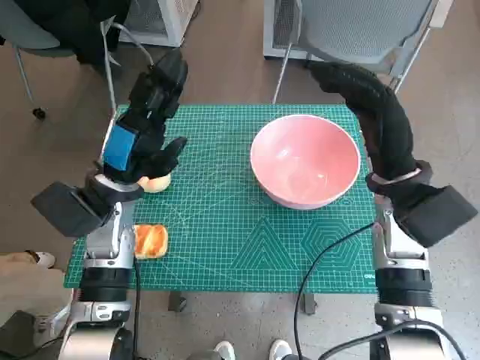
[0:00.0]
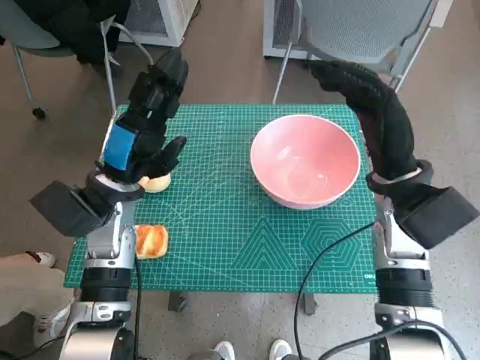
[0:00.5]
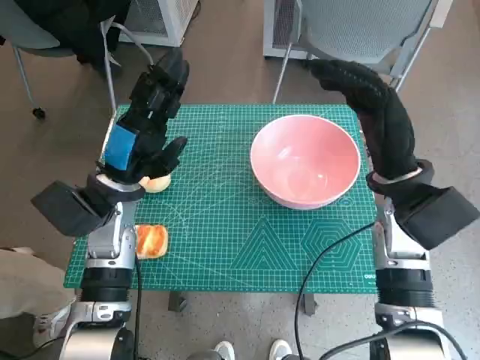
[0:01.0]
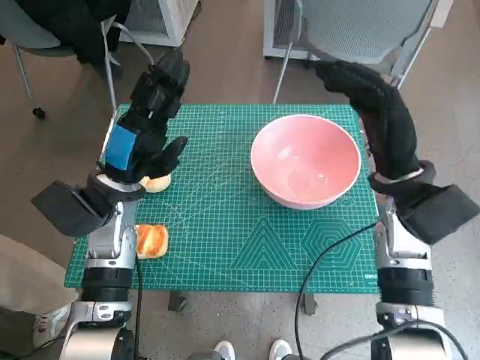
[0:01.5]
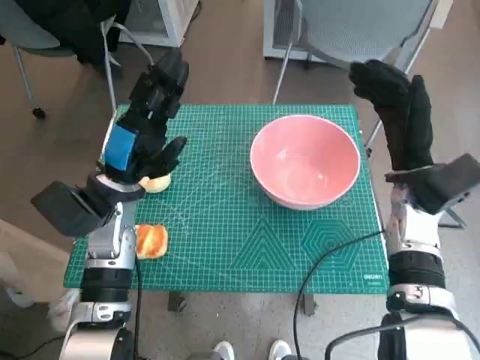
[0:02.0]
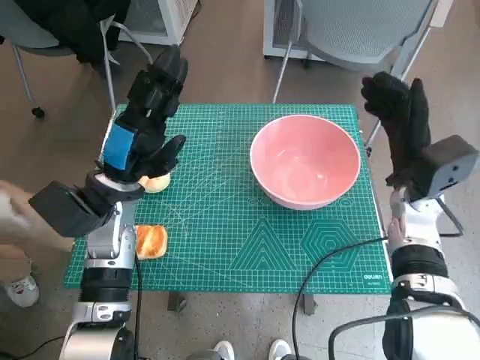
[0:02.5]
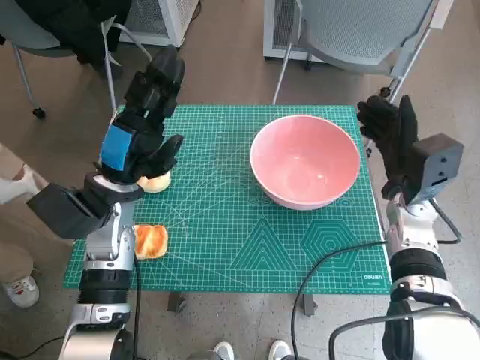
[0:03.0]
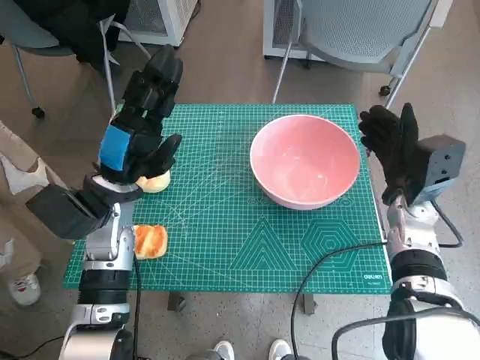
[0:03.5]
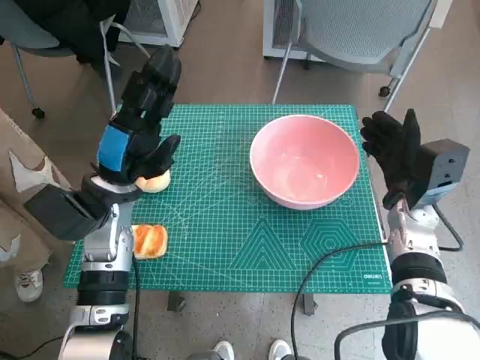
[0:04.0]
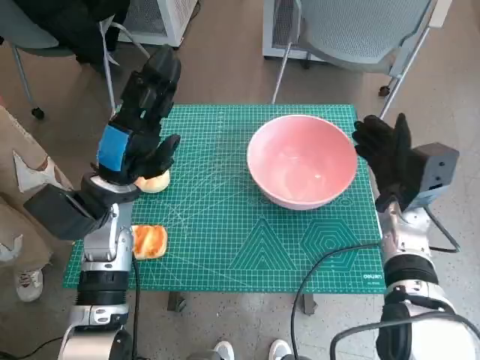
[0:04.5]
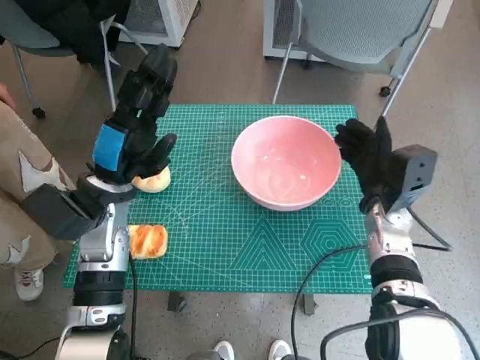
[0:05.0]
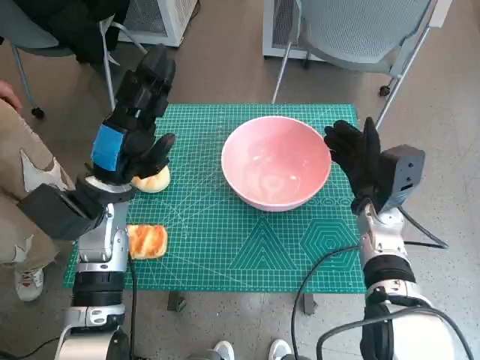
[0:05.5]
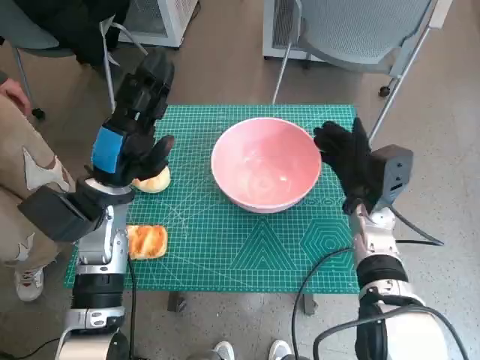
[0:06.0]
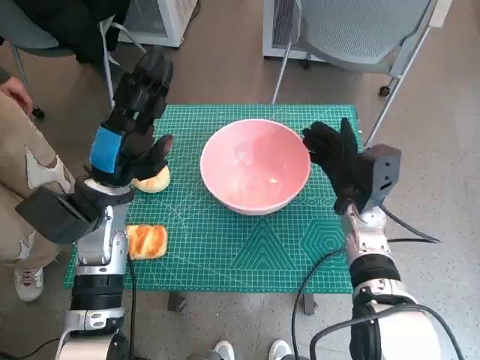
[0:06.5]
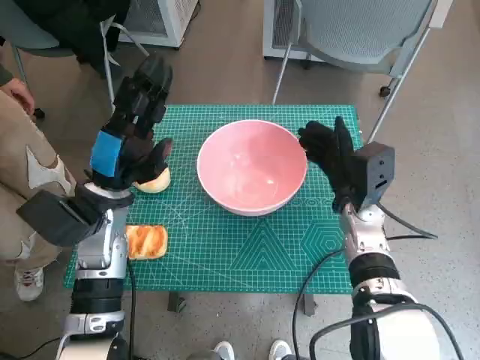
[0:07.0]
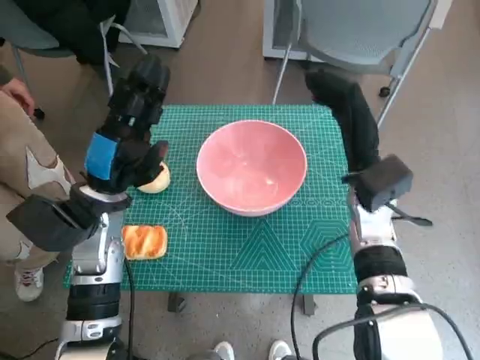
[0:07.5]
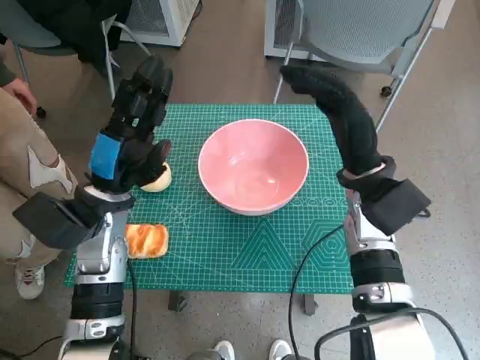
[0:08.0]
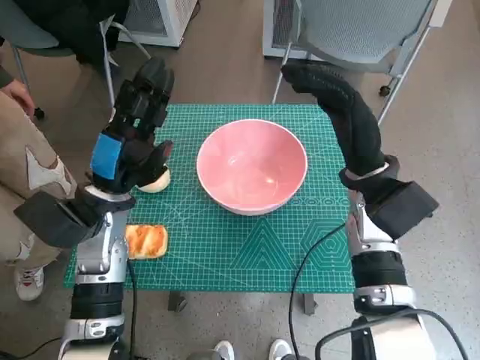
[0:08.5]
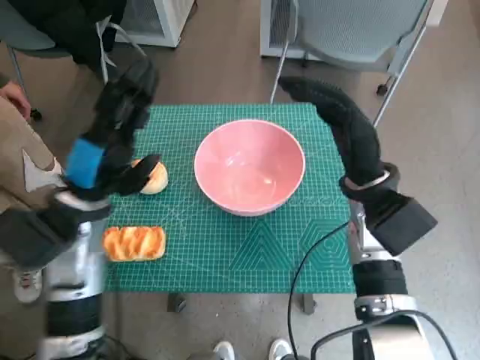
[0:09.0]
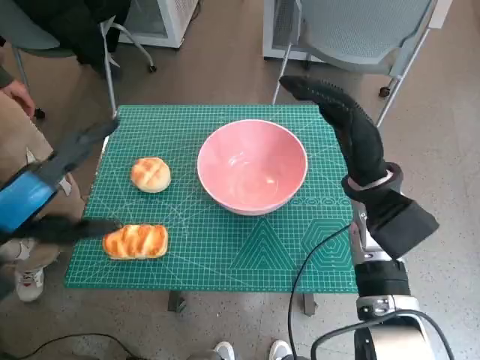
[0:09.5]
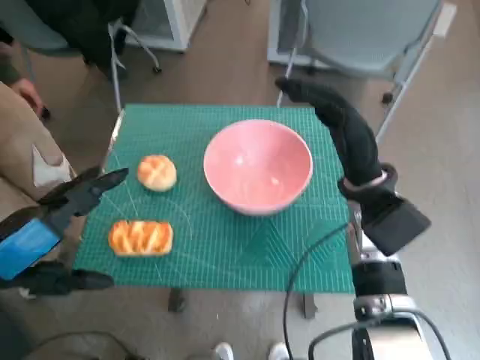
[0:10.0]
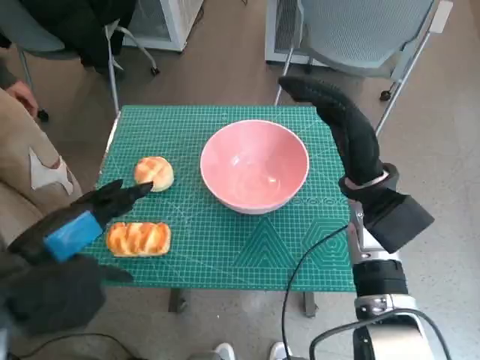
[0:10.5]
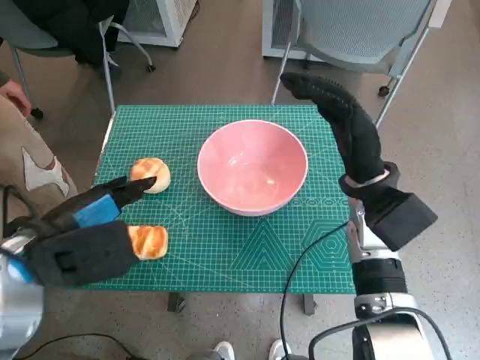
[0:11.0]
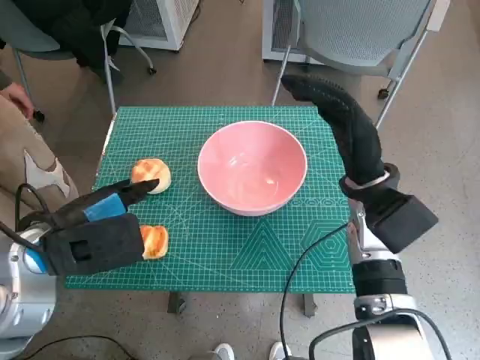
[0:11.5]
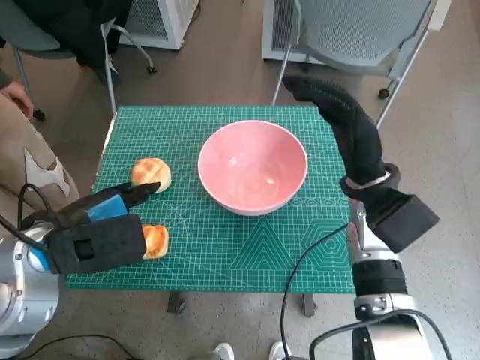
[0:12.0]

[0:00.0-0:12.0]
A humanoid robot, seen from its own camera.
Step, 0:00.0 to 0:07.0: Move the pink bowl to the center of table with right hand.
0:02.0 to 0:04.0: The right hand moves downward, about 5 cm.
0:04.0 to 0:06.0: The right hand moves to the left, approximately 5 cm.
0:06.0 to 0:08.0: The right hand travels upward by some 10 cm.
0:08.0 to 0:10.0: The left hand is displaced backward and upward by some 15 cm.
0:10.0 to 0:12.0: The left hand shifts about 10 cm forward.

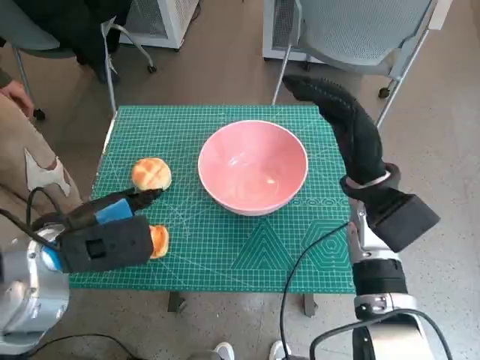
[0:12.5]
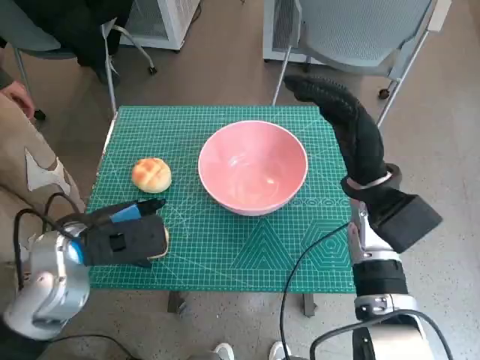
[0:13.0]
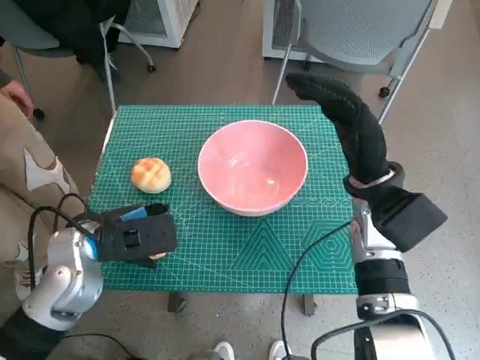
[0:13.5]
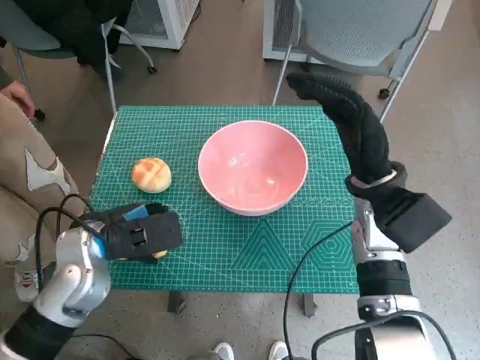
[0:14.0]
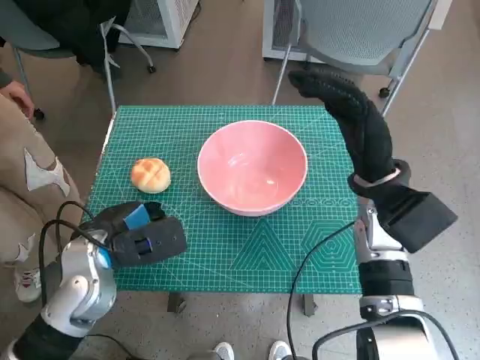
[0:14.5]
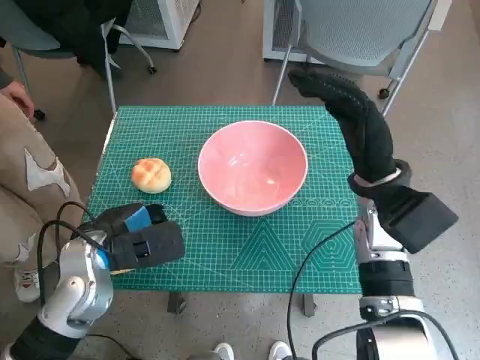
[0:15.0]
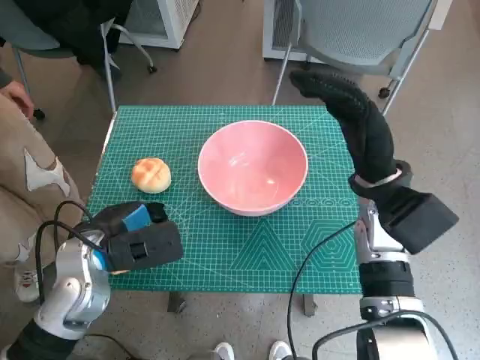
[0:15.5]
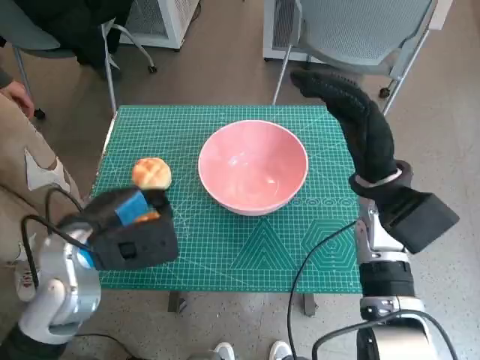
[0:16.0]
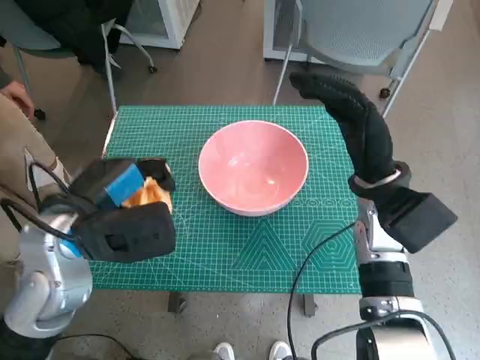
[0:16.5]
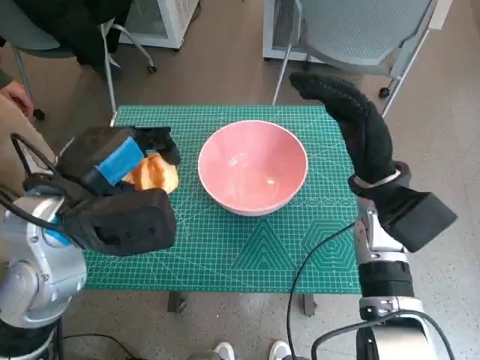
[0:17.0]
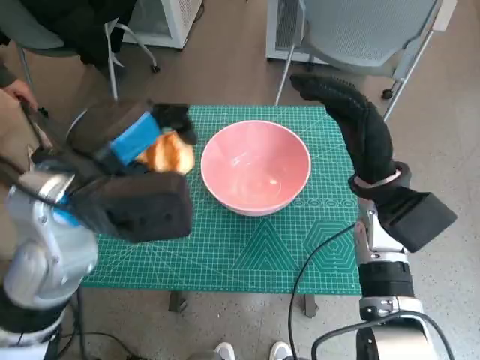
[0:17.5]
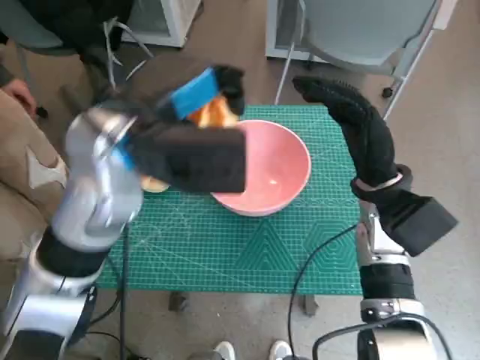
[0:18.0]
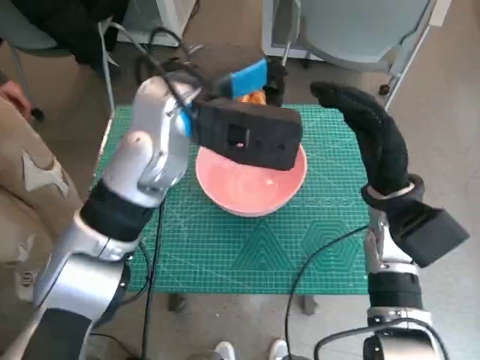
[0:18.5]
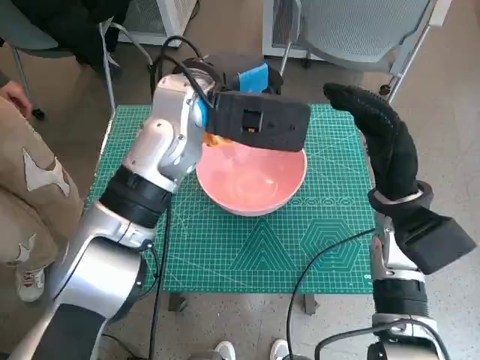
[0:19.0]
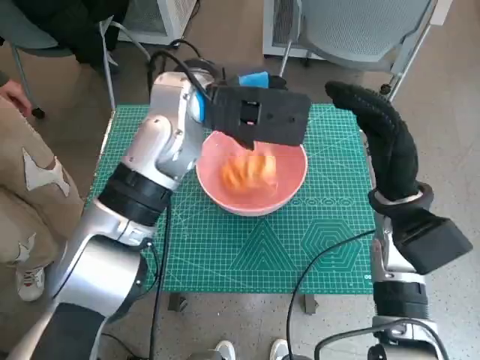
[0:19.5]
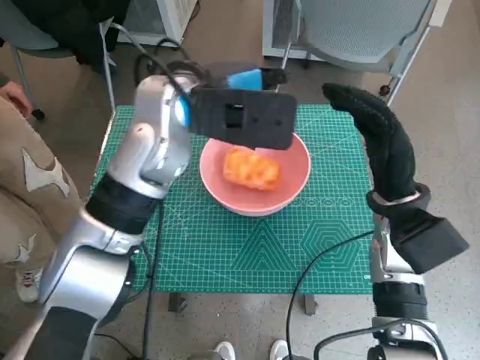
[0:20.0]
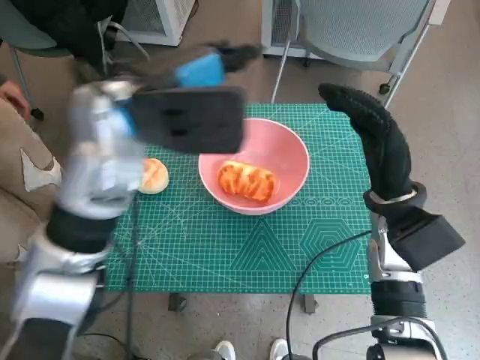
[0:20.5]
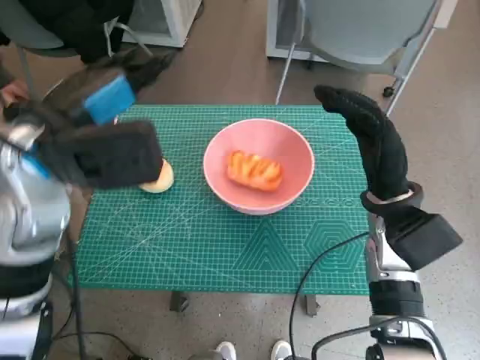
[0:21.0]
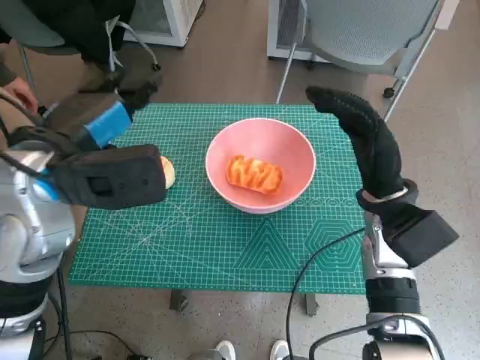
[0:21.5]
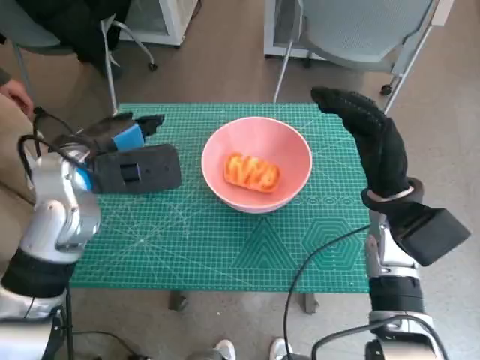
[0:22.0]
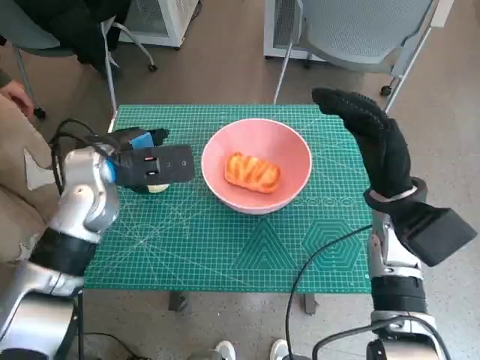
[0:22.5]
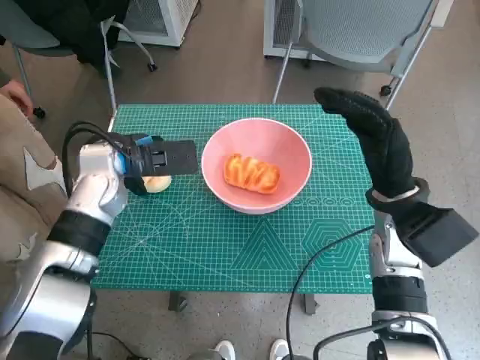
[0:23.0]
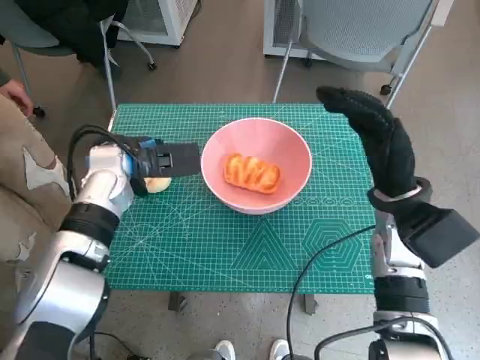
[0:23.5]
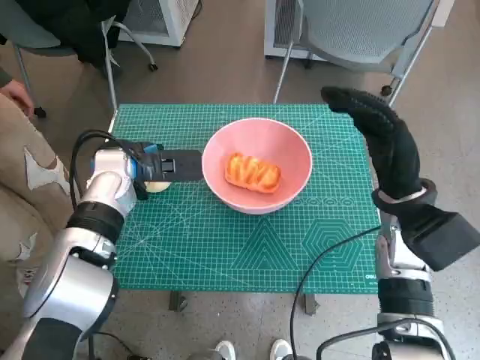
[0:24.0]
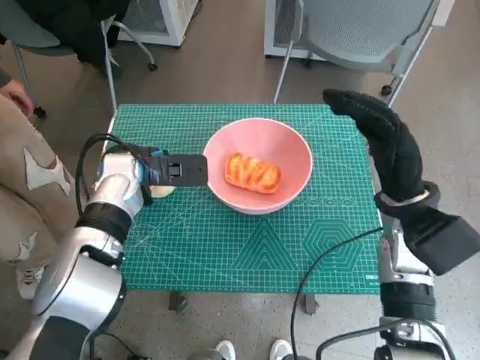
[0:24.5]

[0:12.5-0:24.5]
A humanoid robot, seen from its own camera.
Step, 0:12.5 to 0:14.5: Grasp the long bread with left hand.
Step, 0:15.0 to 0:19.5: Place the long bread in pink bowl with left hand.
0:12.5 to 0:14.5: The left hand goes approximately 5 cm downward.
0:14.5 to 0:16.5: The left hand is displaced upward by roughly 10 cm.
0:16.5 to 0:18.5: The left hand heads to the right, forward and upward, covering roughly 20 cm.
0:20.5 to 0:22.5: The left hand goes about 15 cm downward and to the left.
0:22.5 to 0:24.5: The left hand moves downward, about 5 cm.

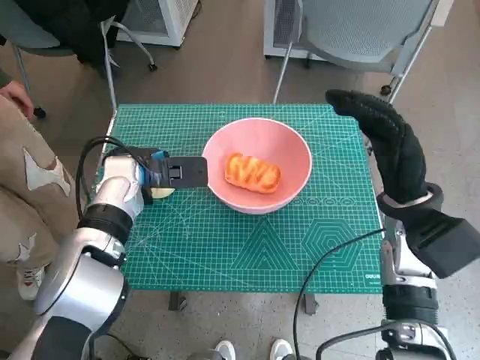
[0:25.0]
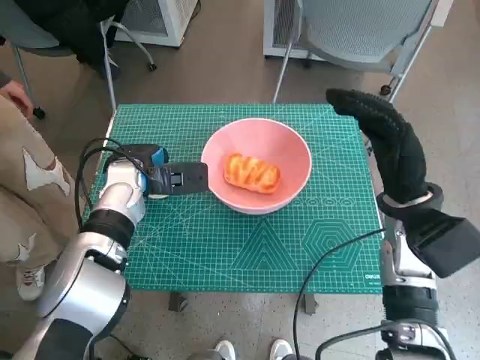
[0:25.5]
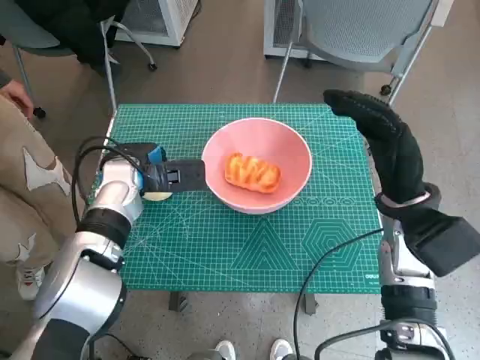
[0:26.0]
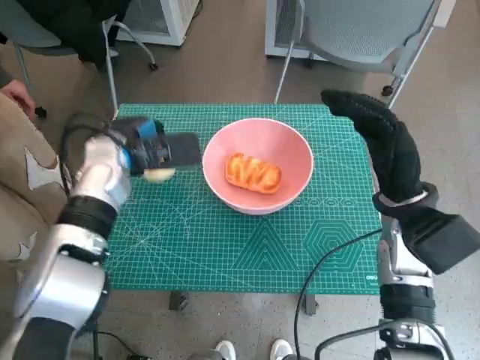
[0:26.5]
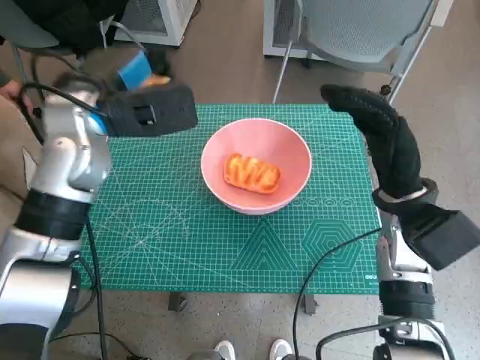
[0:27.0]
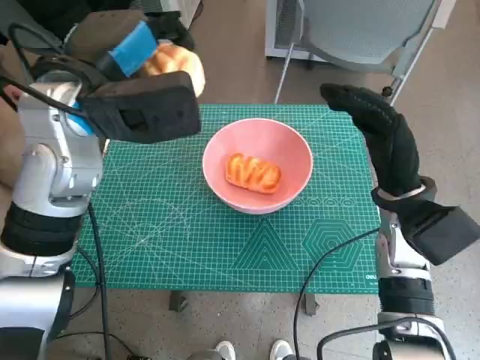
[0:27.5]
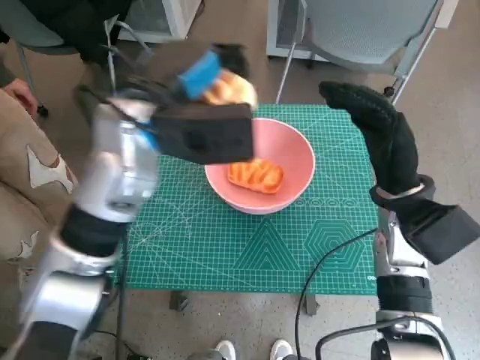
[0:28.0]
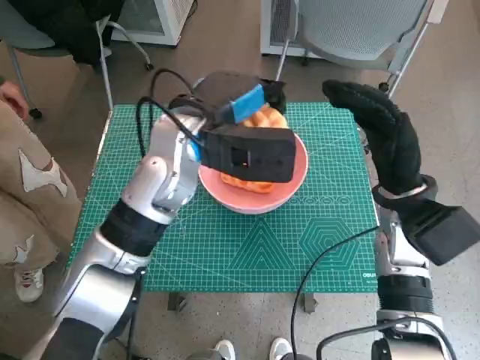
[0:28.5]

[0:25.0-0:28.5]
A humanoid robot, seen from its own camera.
0:25.0 to 0:27.0: The left hand moves upward, approximately 10 cm.
0:27.0 to 0:28.5: The left hand heads to the right, covering approximately 10 cm.
